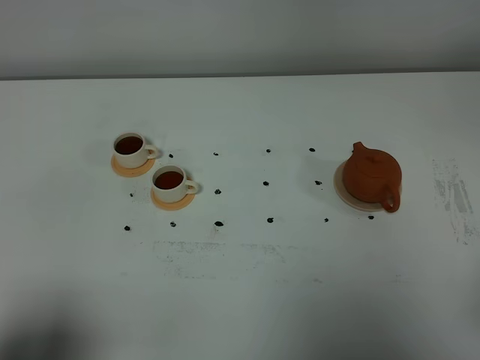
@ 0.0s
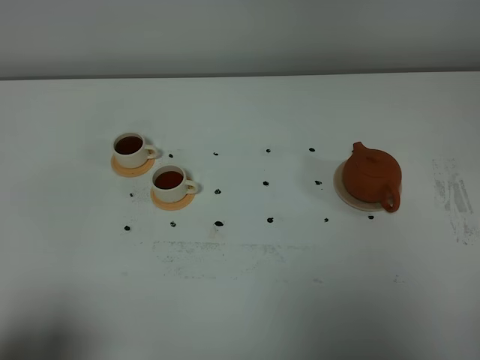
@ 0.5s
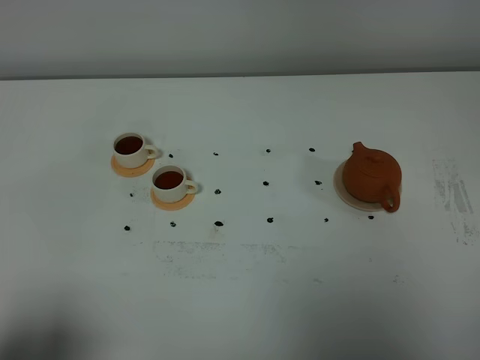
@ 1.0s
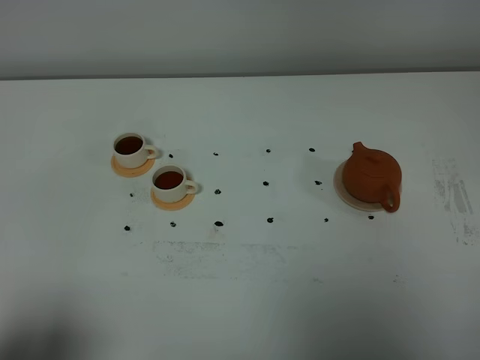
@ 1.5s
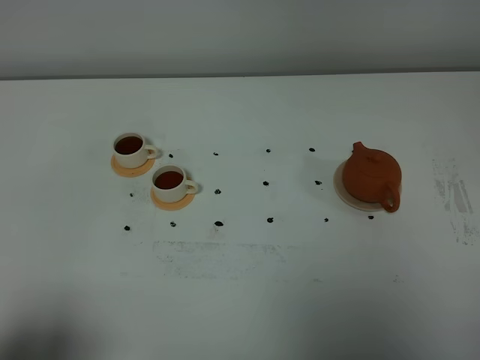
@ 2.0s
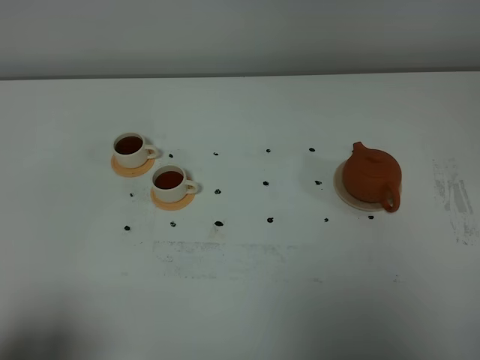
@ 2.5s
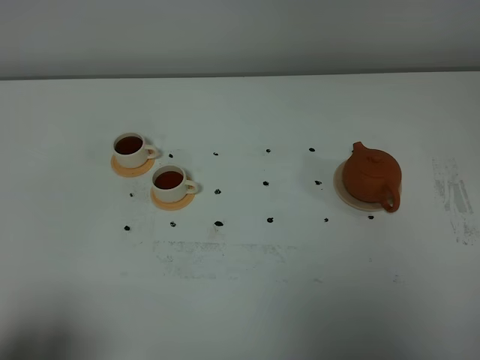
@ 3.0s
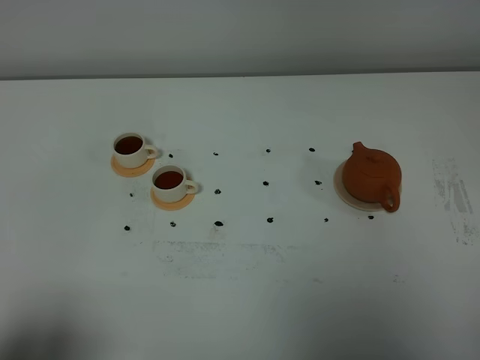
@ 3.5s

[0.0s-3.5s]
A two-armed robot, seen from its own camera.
Task of the whole recording: grasp the brown teapot and pour the tea into the two white teacups one by one, put the brown teapot back in its original place.
2.0s to 3.5s: The two grippers keep their place.

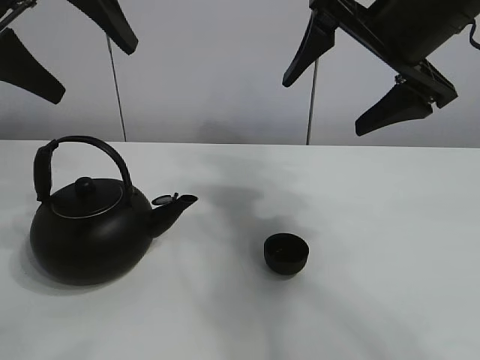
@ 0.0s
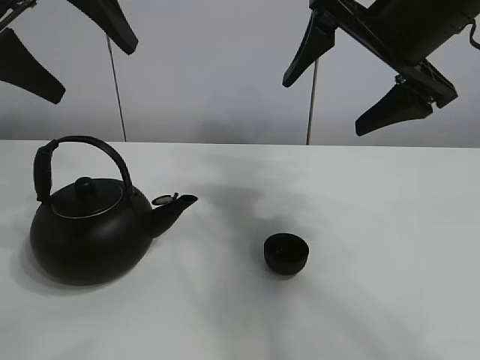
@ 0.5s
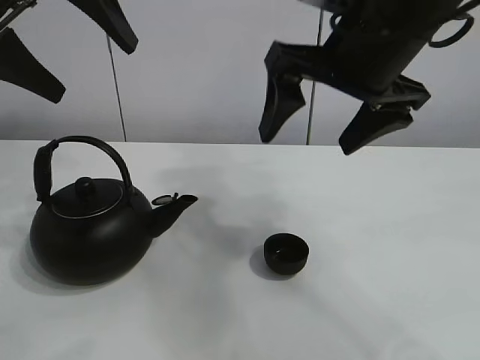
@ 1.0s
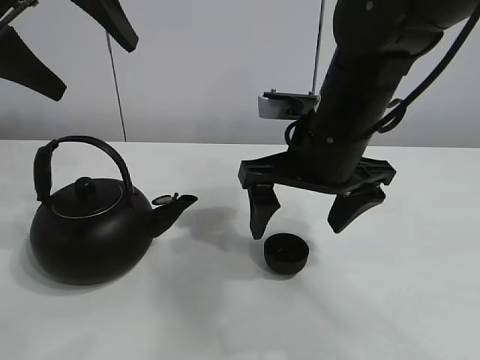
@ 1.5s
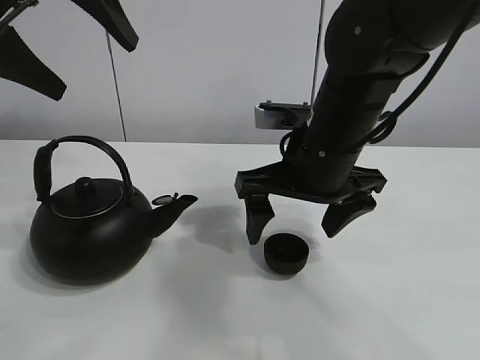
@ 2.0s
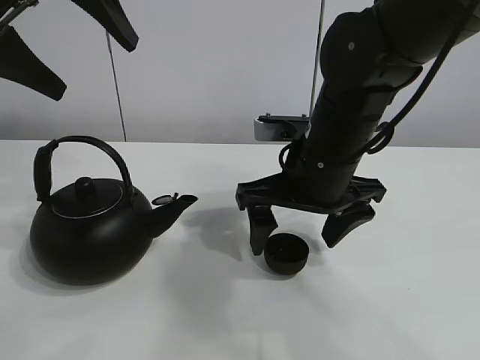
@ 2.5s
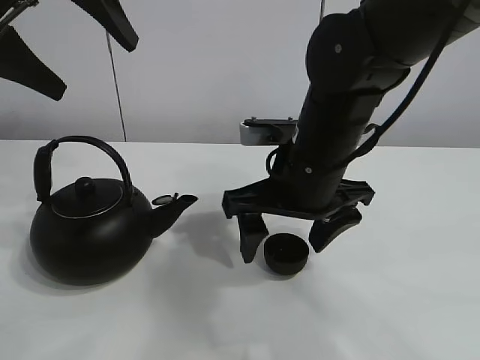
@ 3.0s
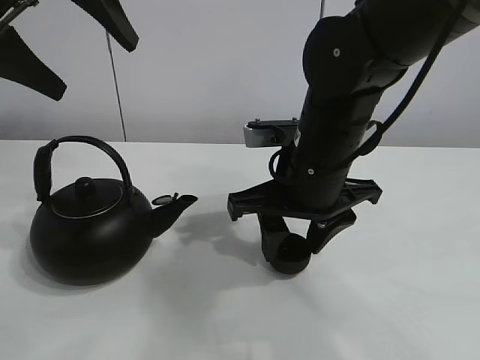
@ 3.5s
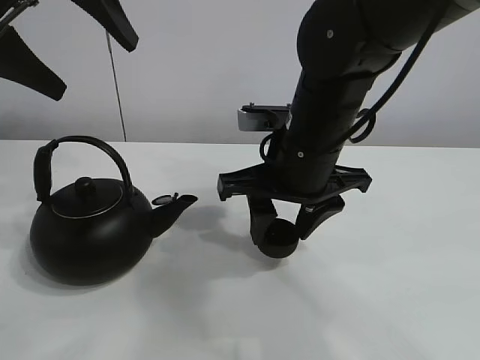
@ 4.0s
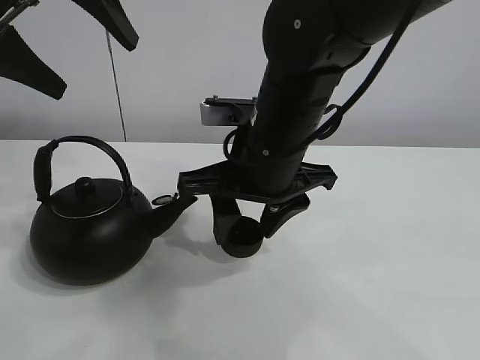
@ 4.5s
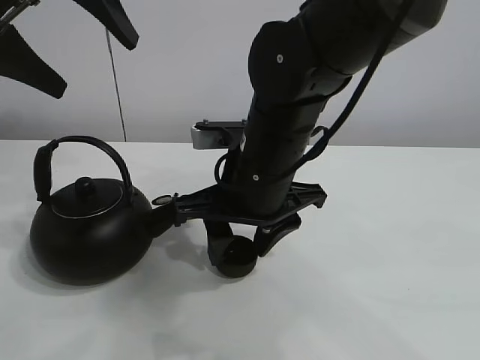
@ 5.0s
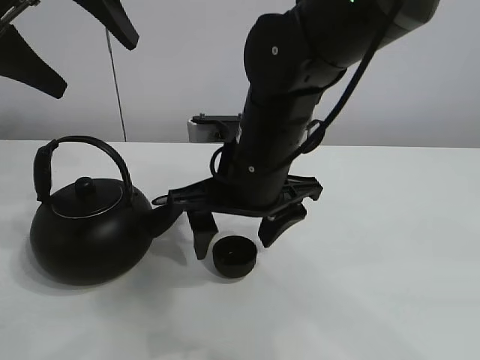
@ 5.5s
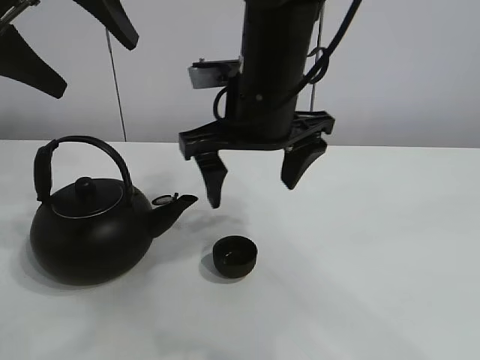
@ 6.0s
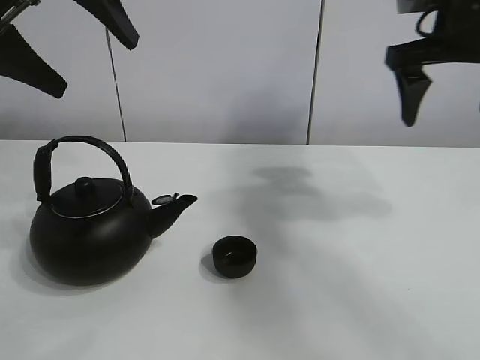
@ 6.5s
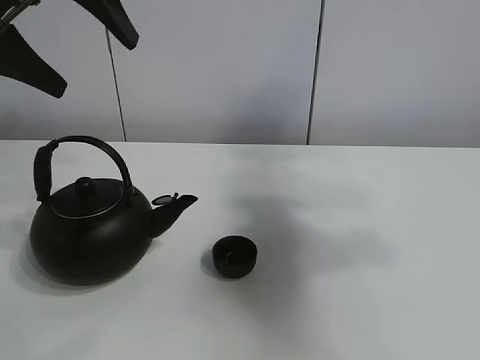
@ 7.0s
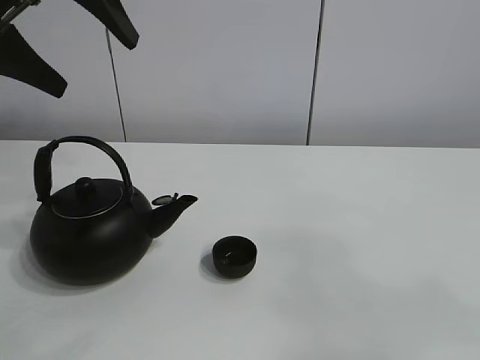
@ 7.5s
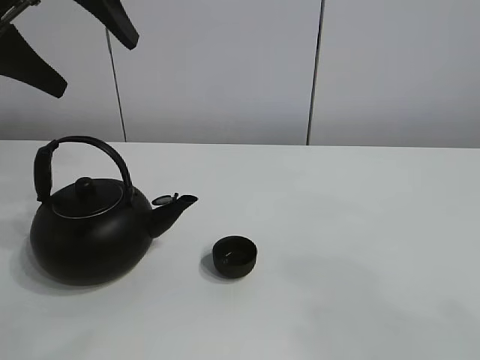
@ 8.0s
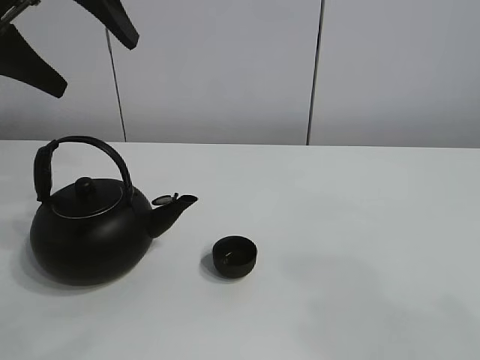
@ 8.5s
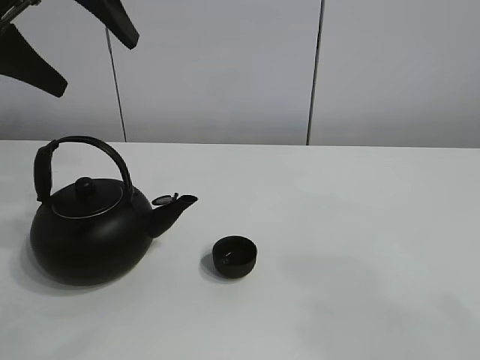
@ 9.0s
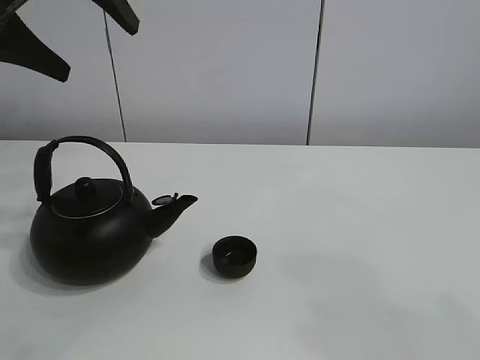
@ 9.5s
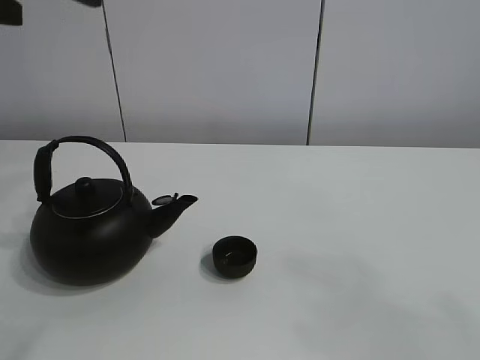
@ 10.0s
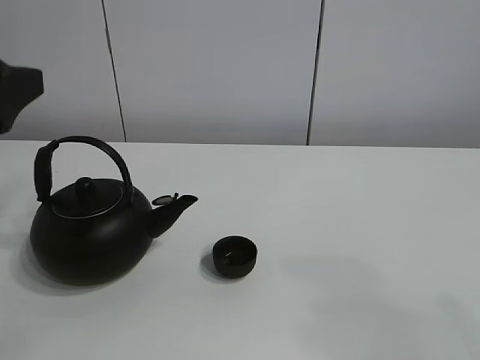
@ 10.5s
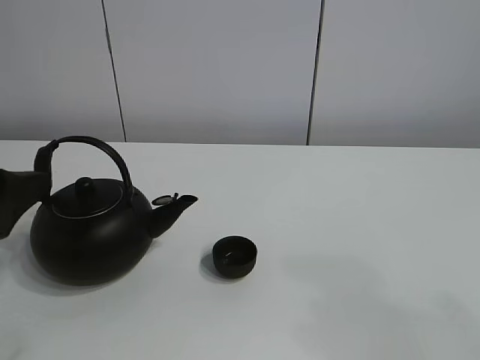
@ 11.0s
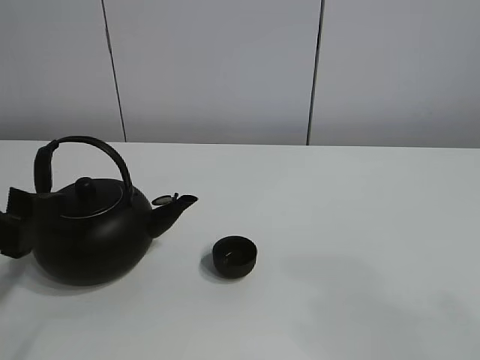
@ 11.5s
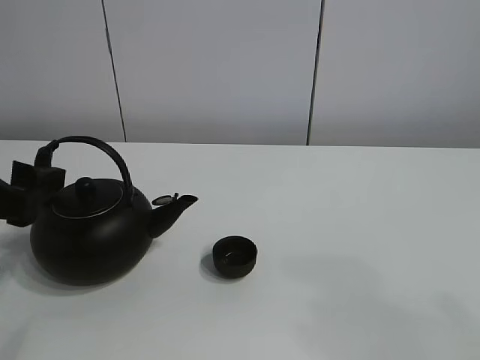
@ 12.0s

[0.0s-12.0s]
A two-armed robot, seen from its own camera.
Task of the whole recording: pour tea into the teacup.
Step, 0.0s to 3.5s: Pick up the teacup with the right gripper.
Step, 4.0s to 5.0s: Place the teacup in the center of view with the right gripper.
2.0s to 4.0s: The right gripper closes its fingers.
4.0s to 6.0s: The right gripper travels upward by roughly 5 cm, and opens up.
6.0s to 8.0s: The right gripper travels backward and to the right by some 40 cm.
10.0s to 12.0s: The left gripper heads downward, covering about 15 cm.

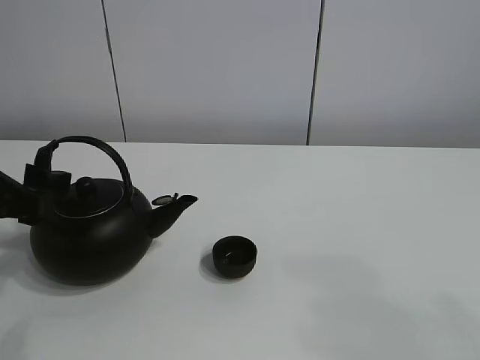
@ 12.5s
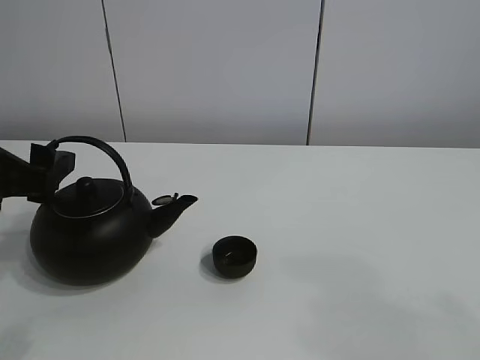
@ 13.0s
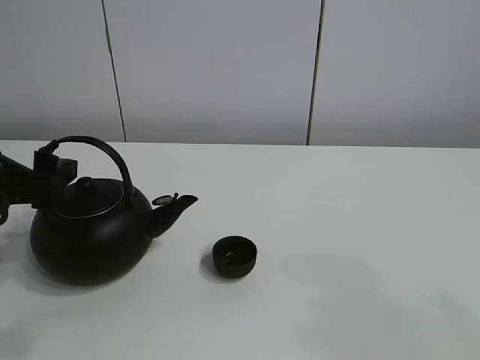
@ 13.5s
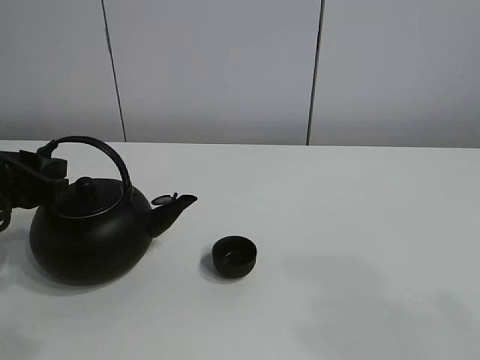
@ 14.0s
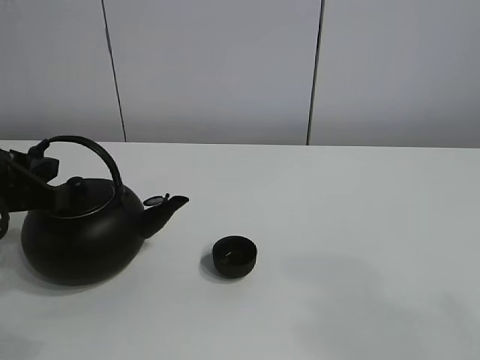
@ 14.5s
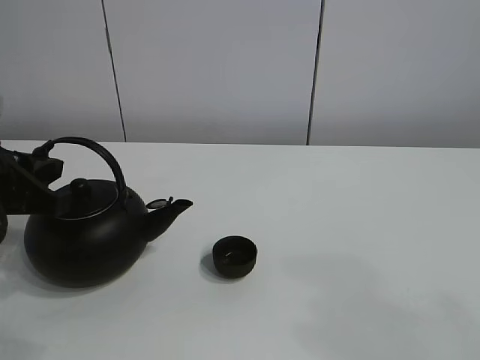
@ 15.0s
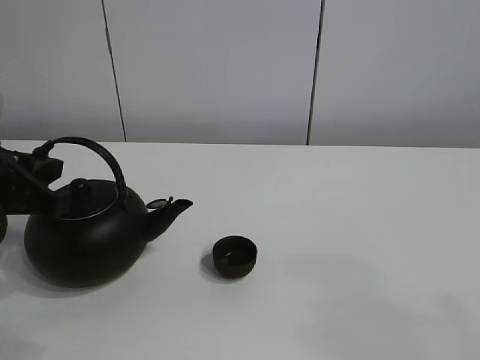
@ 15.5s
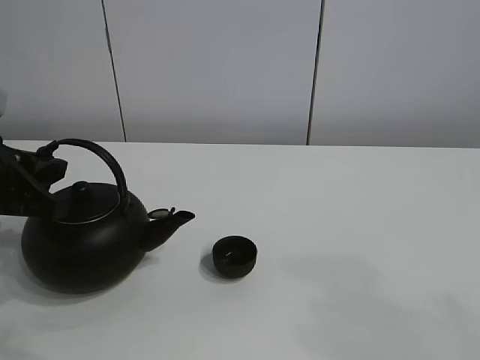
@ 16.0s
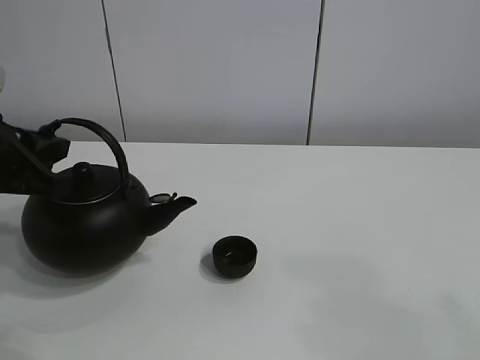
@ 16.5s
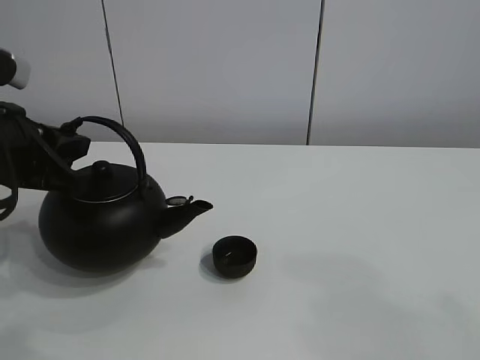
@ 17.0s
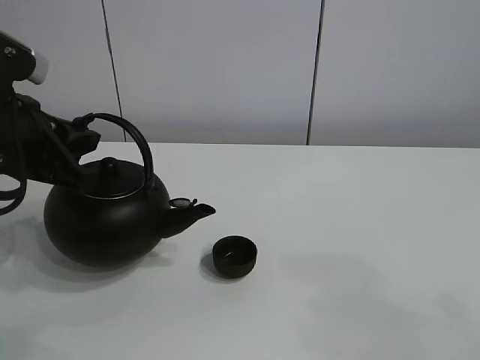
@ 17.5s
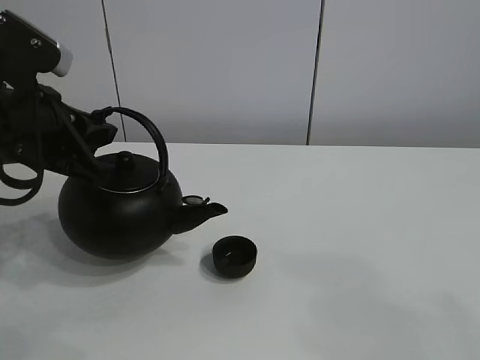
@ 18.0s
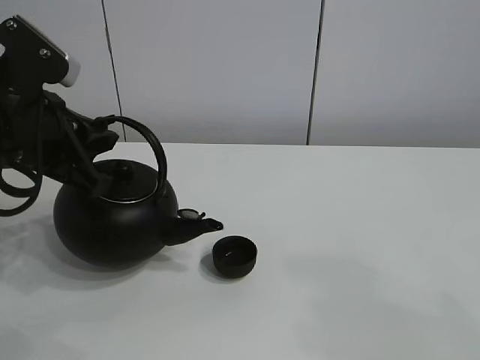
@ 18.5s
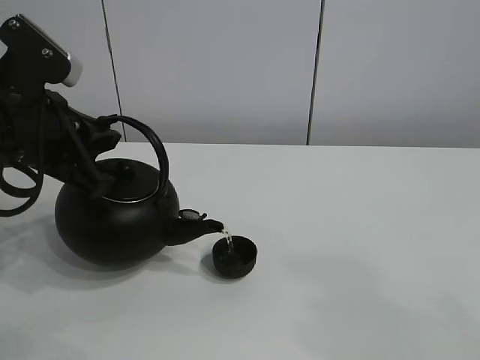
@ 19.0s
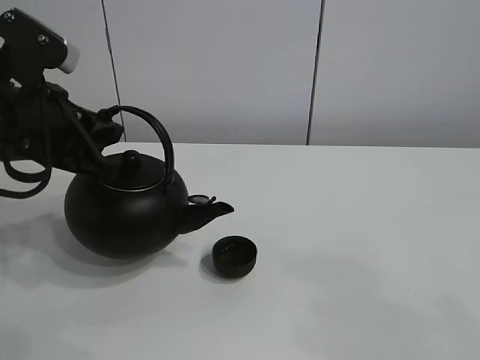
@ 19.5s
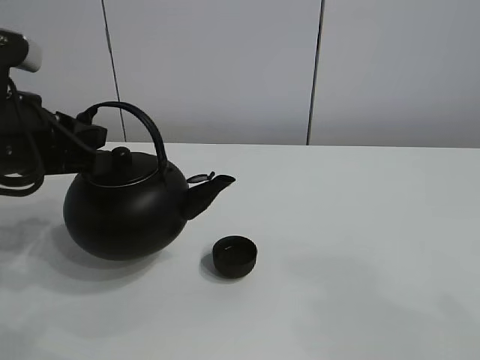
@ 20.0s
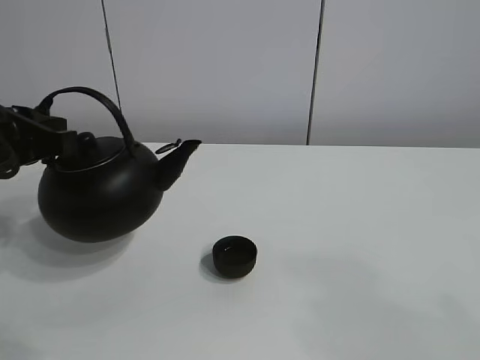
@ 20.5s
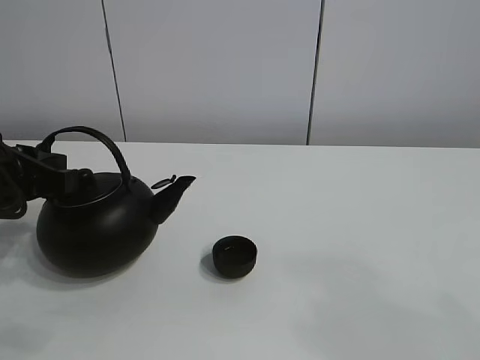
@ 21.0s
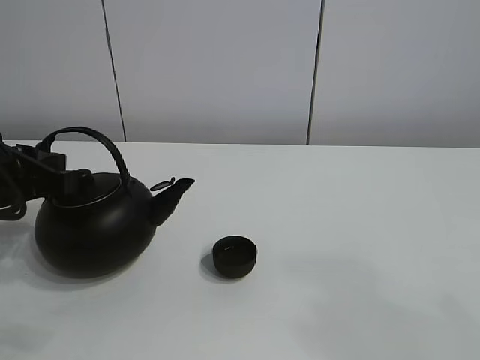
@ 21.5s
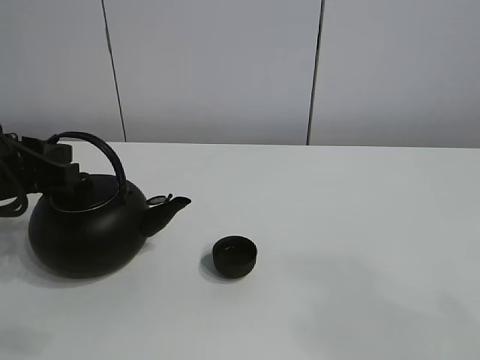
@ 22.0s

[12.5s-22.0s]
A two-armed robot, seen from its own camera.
Task of the whole recording: pour tea into the teacup.
Step, 12.5s to 16.0s: Pick up the teapot with the left gripper.
Step, 16.5s to 19.5s: Pour tea into the teacup with the left gripper.
12.5s to 14.5s: The left gripper closes.
14.5s to 16.5s: There are only small adjustments of the grippers.
16.5s to 22.0s: There are only small adjustments of the grippers.

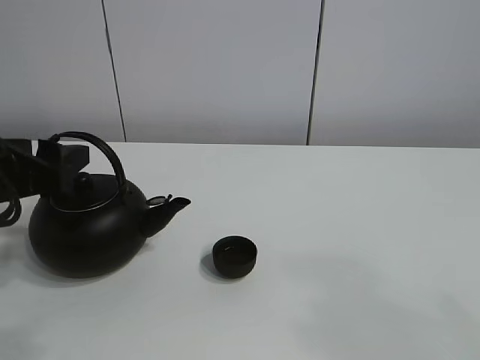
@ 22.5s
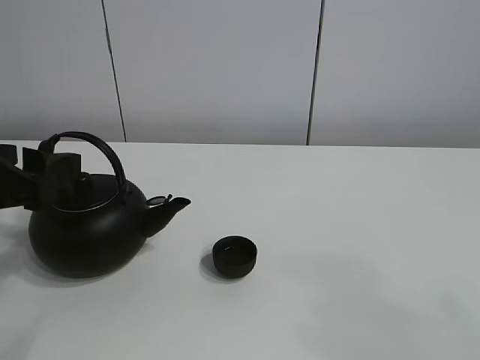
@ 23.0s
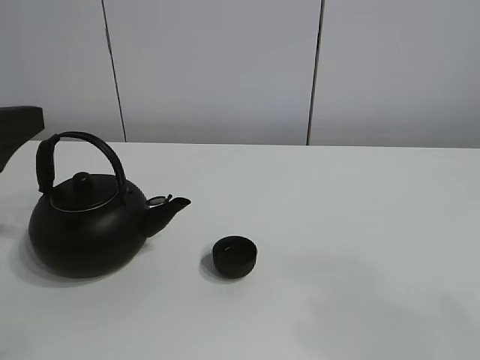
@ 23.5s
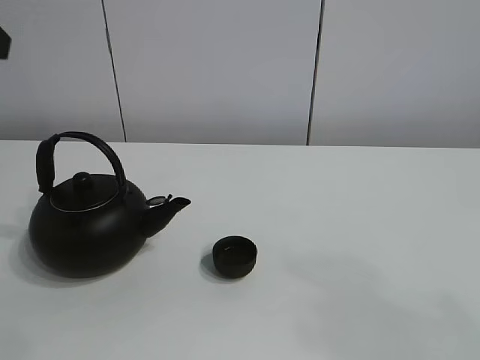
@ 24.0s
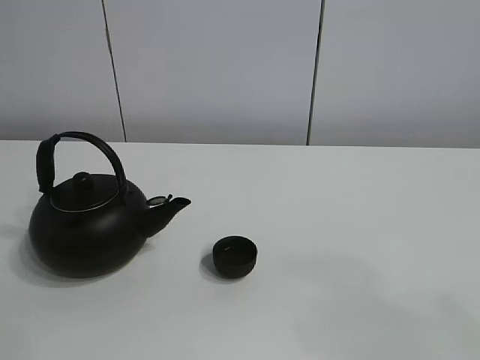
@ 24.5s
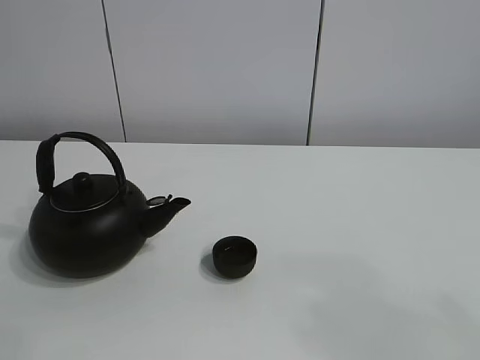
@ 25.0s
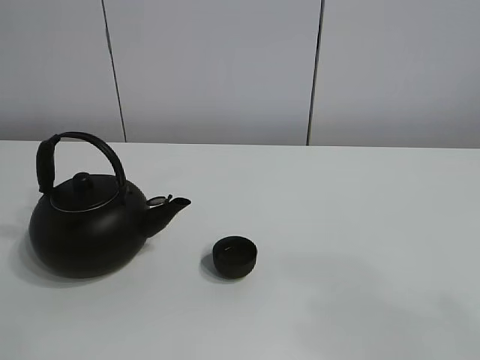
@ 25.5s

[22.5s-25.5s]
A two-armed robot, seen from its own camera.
Task of the whole recording: pour tea into the teacup.
22.5s to 24.0s: The left gripper goes approximately 20 cm upward.
